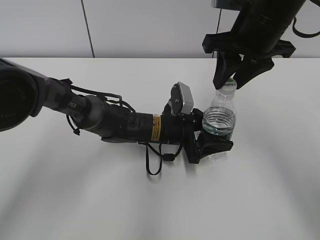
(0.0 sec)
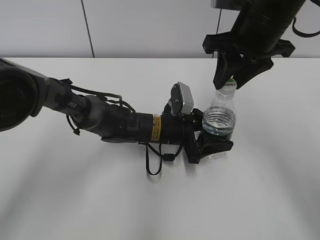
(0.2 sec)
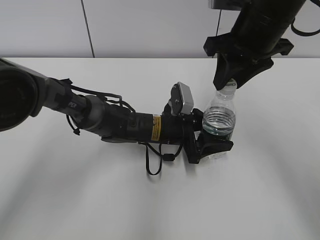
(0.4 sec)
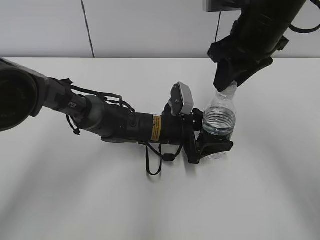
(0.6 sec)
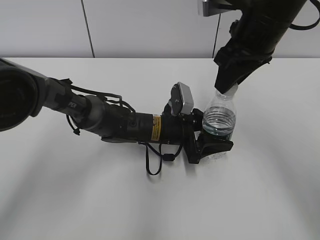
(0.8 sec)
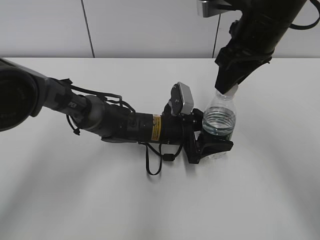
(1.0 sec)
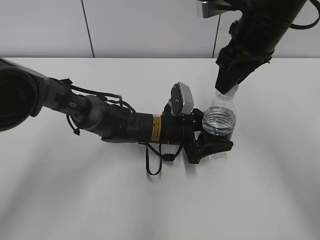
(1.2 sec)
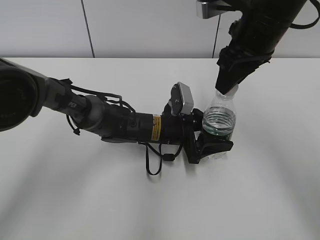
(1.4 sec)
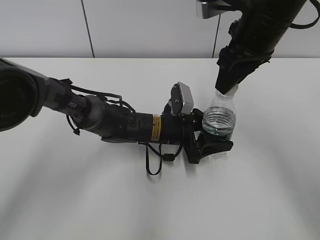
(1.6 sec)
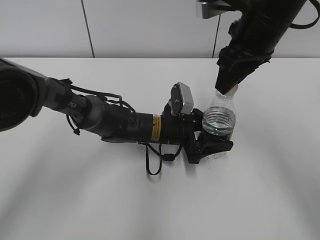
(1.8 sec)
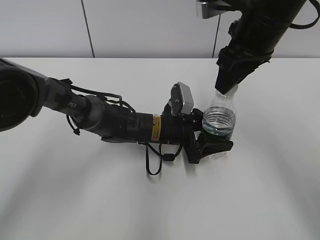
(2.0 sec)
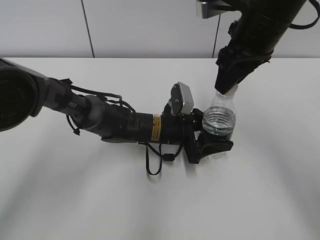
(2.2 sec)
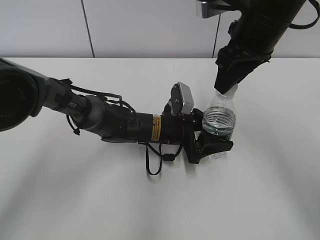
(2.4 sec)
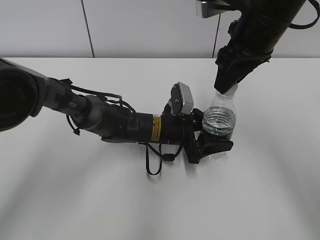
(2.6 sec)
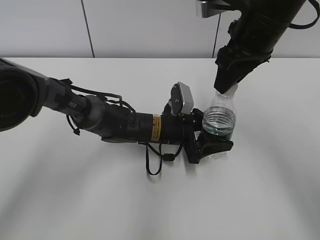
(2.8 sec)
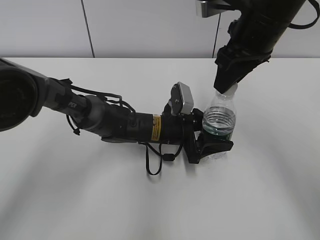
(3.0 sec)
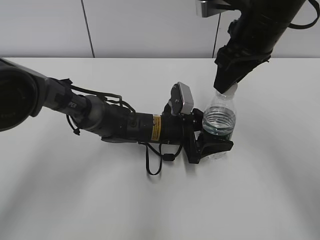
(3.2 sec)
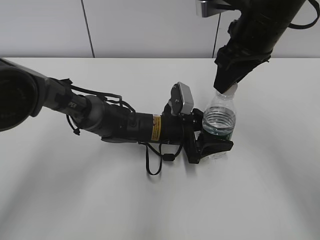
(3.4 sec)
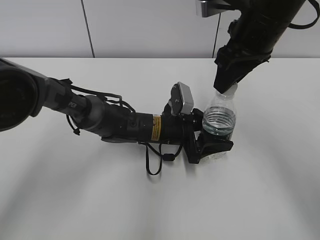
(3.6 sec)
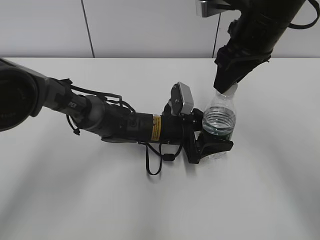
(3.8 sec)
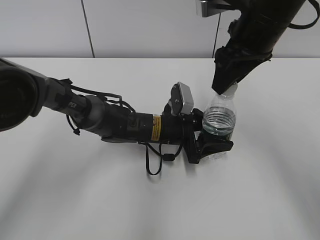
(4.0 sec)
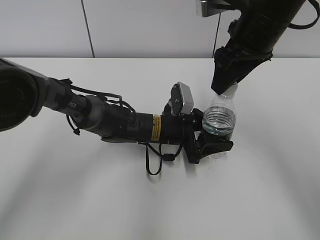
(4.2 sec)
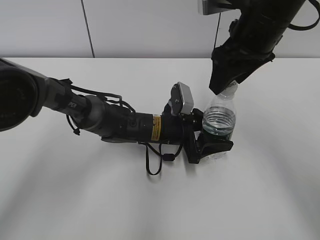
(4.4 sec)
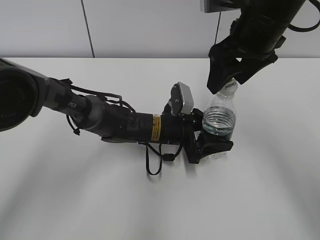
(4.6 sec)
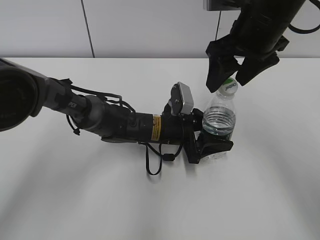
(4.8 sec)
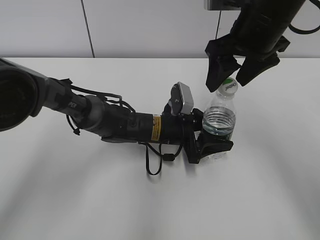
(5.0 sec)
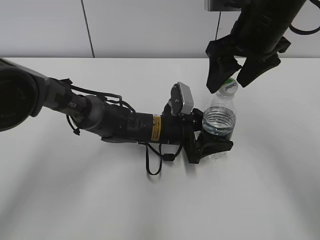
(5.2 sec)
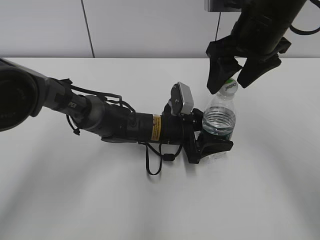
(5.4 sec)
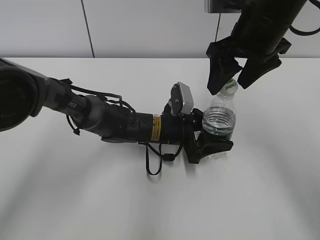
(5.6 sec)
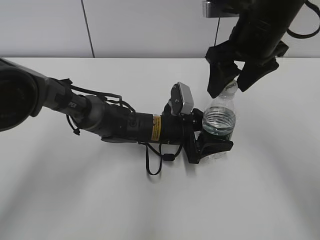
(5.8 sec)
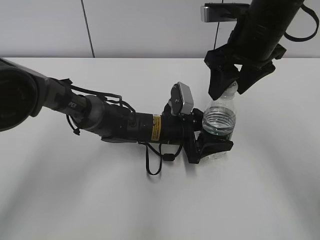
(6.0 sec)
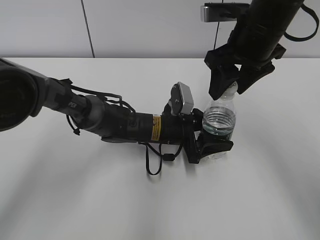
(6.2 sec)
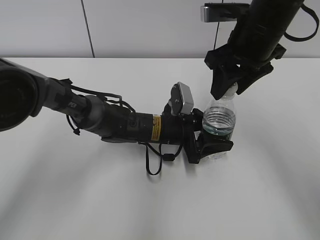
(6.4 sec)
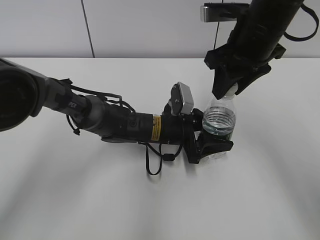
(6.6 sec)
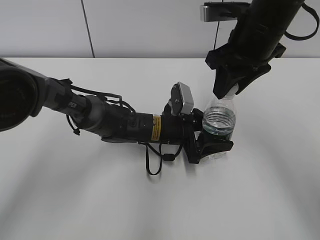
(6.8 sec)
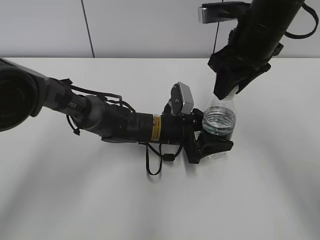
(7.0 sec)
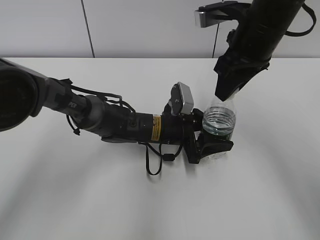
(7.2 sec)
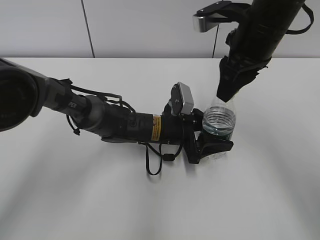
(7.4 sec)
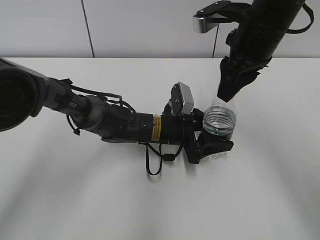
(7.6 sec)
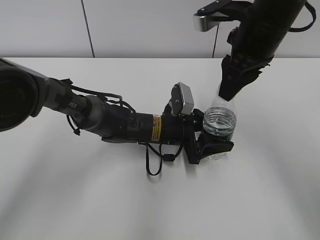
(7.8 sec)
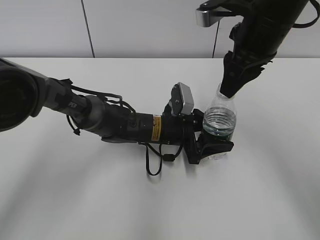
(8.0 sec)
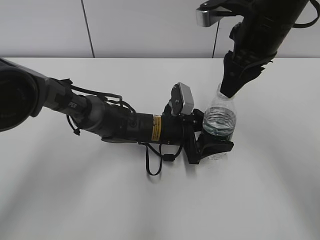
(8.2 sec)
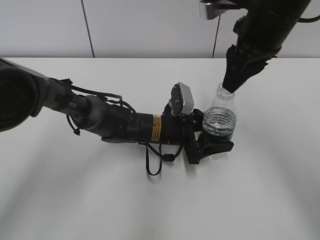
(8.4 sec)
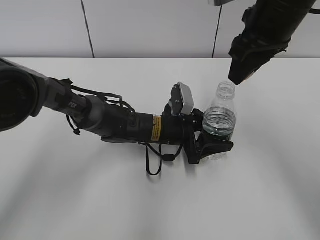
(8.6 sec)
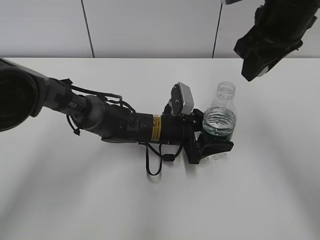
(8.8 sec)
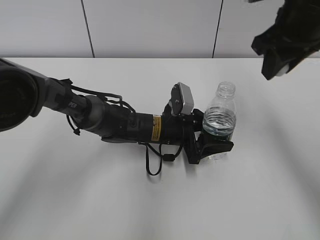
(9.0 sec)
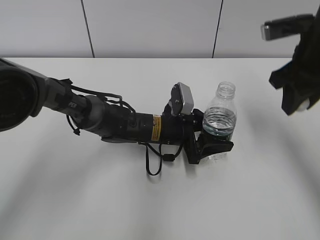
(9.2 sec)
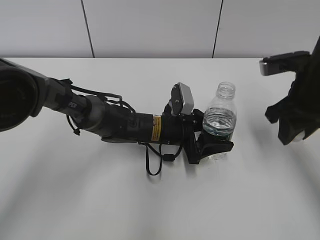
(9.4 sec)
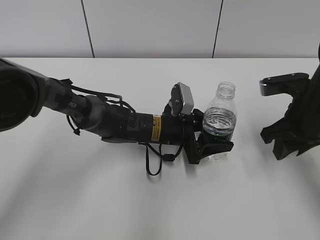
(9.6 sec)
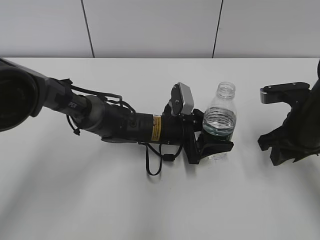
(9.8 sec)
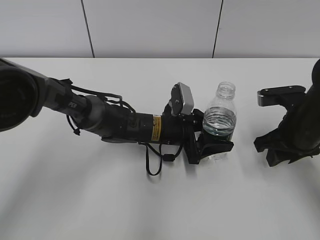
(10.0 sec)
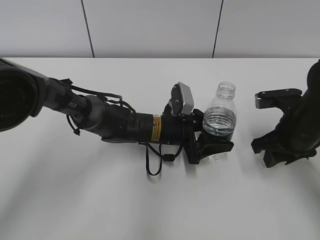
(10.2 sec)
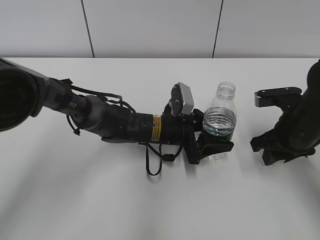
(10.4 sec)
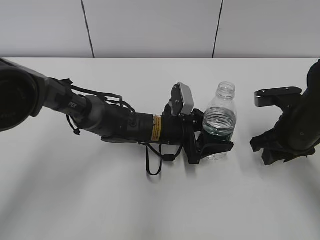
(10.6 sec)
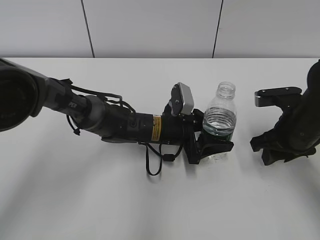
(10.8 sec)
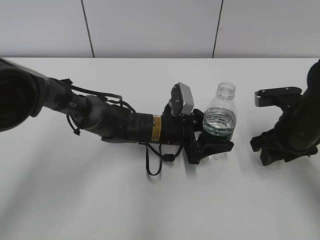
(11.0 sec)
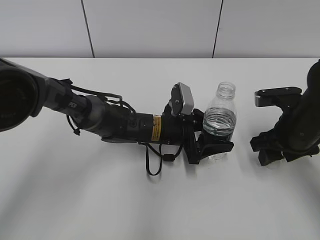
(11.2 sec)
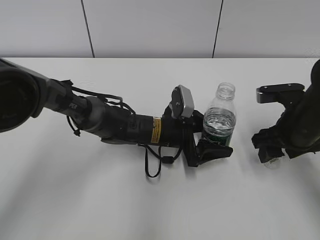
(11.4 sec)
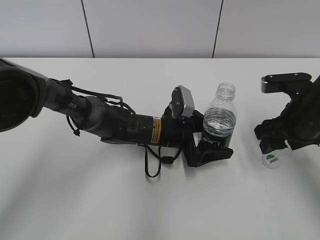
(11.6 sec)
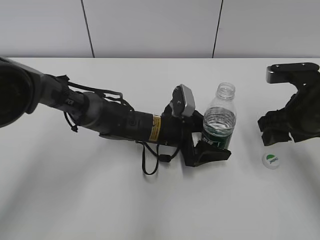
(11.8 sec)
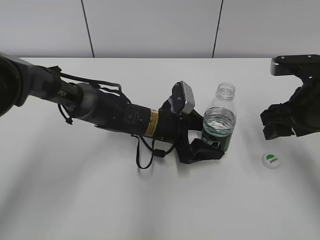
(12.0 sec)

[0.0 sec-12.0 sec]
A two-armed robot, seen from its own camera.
Step, 8.2 sec to 10.8 sec: Place the bottle cap on the table with the right hand.
1.6 sec to 3.0 sec: The two grippers keep their place.
3.0 sec to 4.4 sec: The right gripper opens.
4.4 sec to 6.0 sec: The grippers make only small movements.
6.0 sec to 7.6 sec: The right gripper closes.
7.6 sec to 9.0 sec: The right gripper goes roughly 5 cm to the right.
9.0 sec to 10.4 sec: The right gripper moves downward, about 15 cm.
10.4 sec to 12.0 sec: The left gripper opens. The right gripper moves upward, approximately 5 cm, and opens.

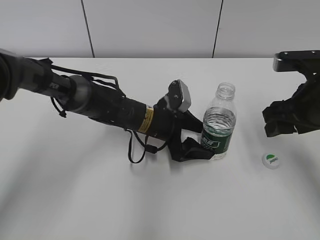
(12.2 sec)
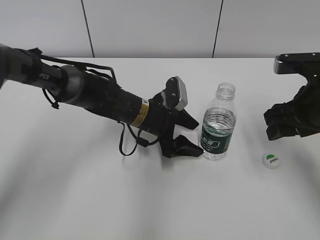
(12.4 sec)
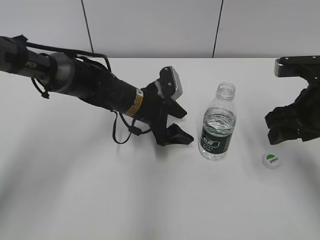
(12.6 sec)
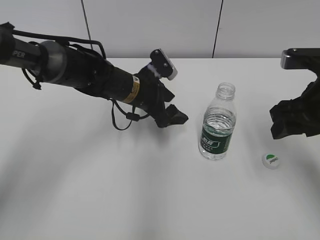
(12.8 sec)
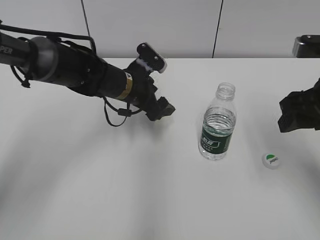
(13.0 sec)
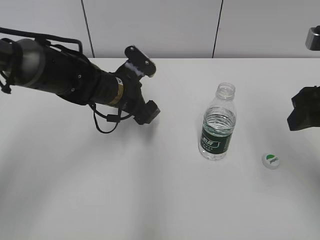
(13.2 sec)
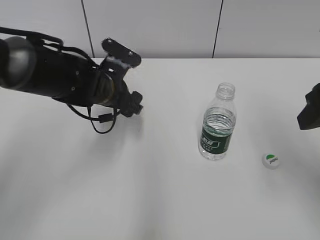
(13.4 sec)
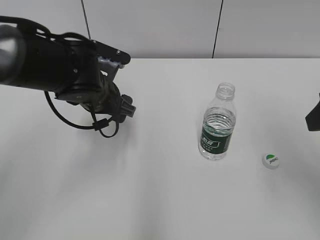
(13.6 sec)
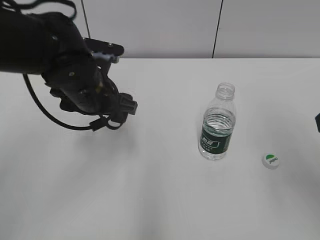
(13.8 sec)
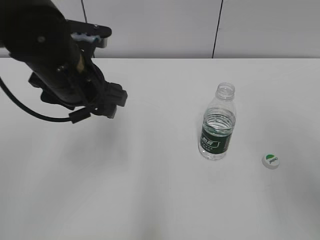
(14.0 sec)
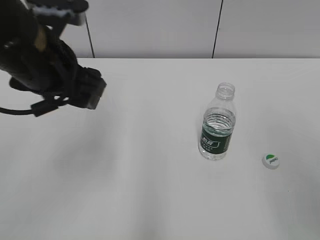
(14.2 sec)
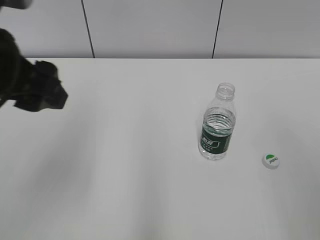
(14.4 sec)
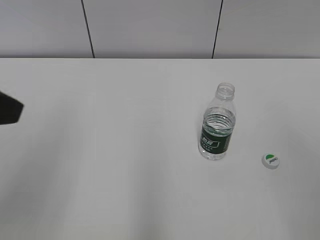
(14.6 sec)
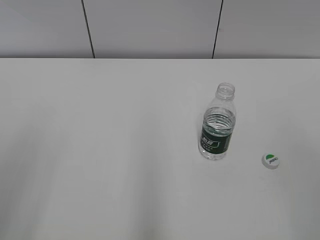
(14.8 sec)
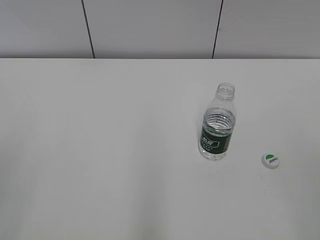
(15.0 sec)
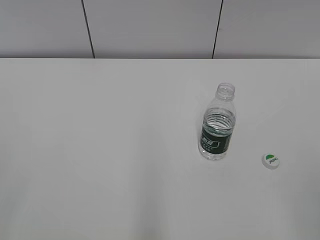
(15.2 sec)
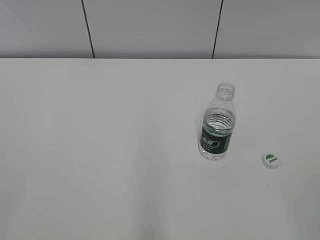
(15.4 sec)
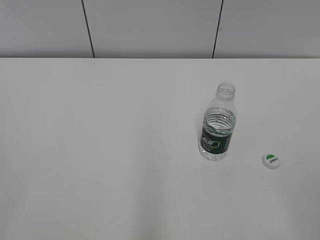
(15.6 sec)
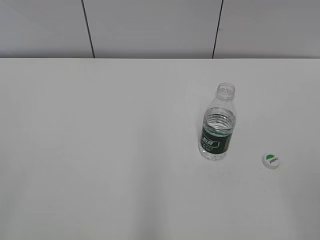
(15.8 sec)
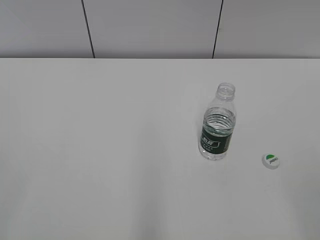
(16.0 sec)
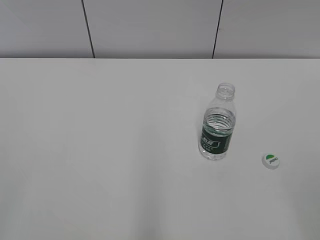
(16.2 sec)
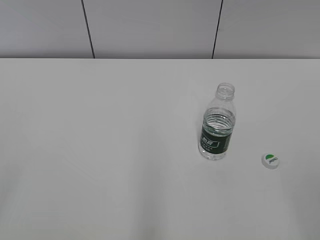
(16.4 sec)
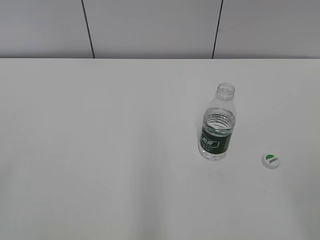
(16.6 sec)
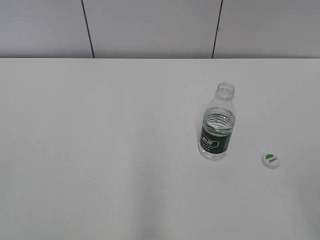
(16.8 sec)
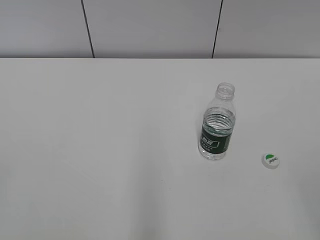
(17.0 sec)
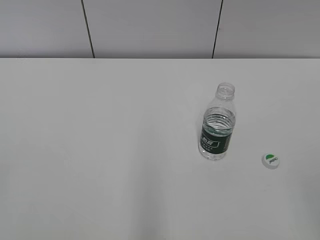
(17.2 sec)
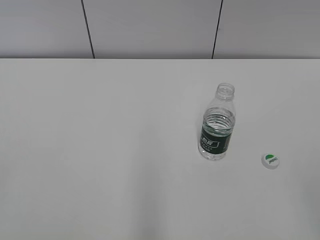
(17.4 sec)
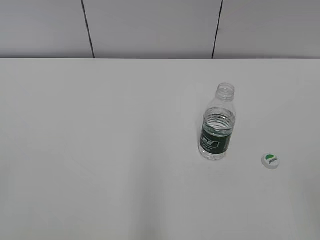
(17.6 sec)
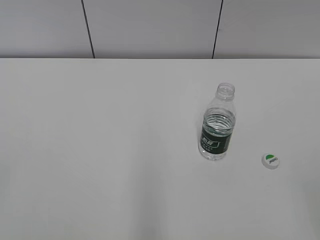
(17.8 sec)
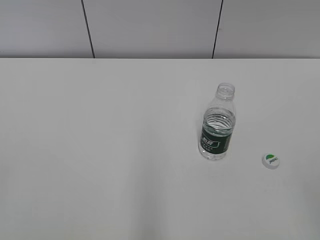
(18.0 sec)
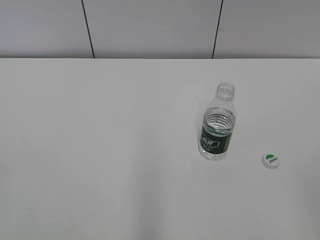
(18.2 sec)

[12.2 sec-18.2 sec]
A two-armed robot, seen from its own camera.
12.2 sec to 13.8 sec: The right gripper shifts some 15 cm upward and backward. Meanwhile the left gripper shifts about 15 cm upward and to the left.
13.8 sec to 15.2 sec: The right gripper moves backward, some 20 cm, while the left gripper heads backward and to the left, covering about 35 cm.
